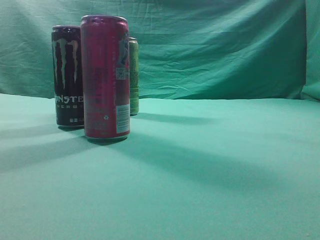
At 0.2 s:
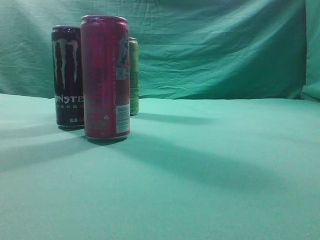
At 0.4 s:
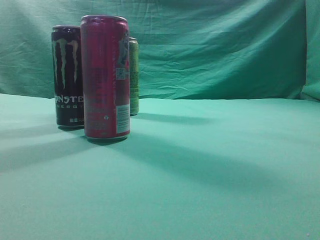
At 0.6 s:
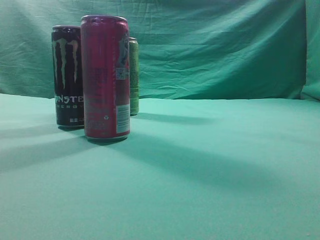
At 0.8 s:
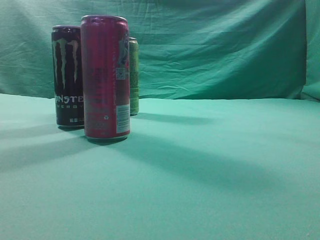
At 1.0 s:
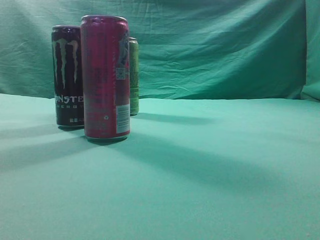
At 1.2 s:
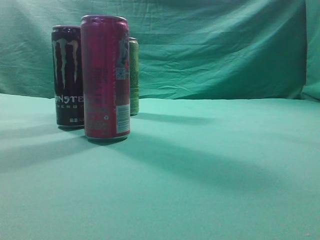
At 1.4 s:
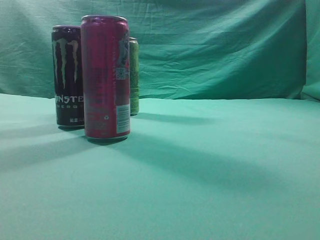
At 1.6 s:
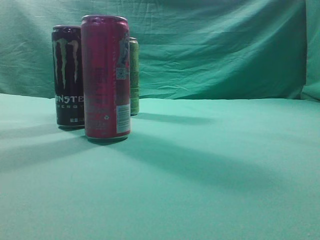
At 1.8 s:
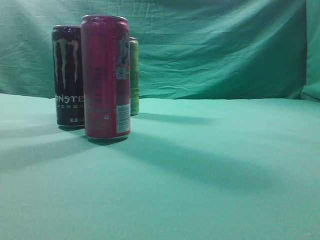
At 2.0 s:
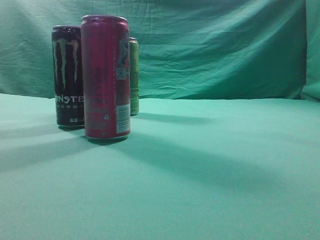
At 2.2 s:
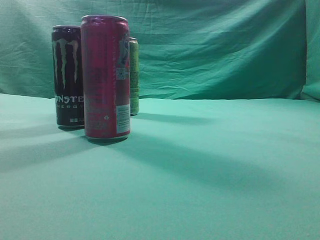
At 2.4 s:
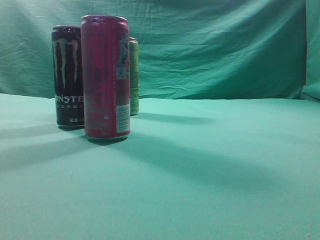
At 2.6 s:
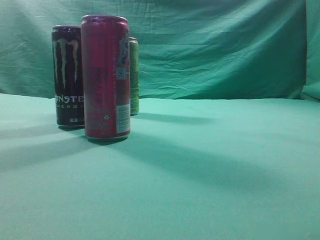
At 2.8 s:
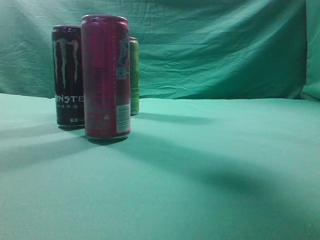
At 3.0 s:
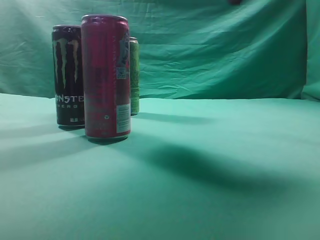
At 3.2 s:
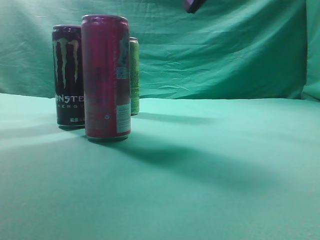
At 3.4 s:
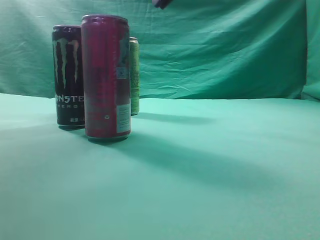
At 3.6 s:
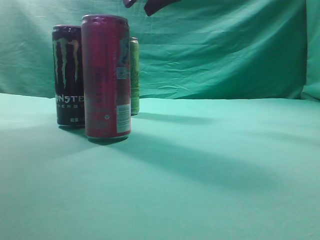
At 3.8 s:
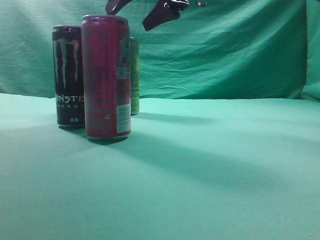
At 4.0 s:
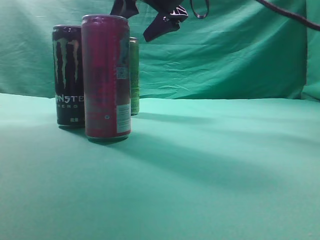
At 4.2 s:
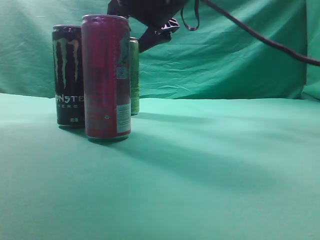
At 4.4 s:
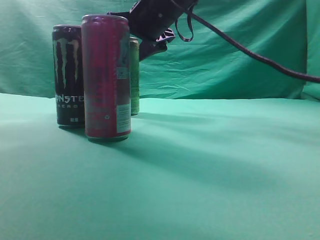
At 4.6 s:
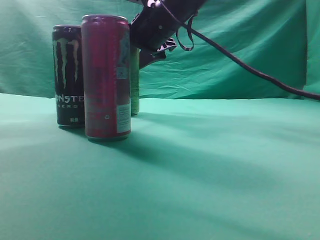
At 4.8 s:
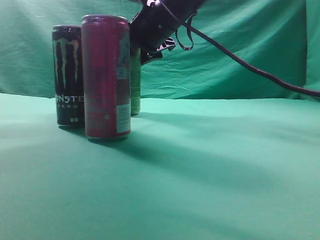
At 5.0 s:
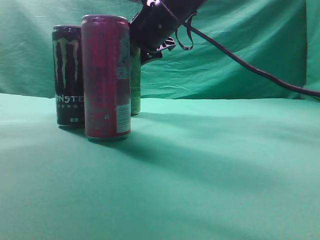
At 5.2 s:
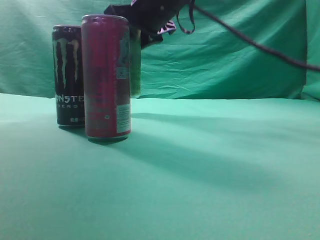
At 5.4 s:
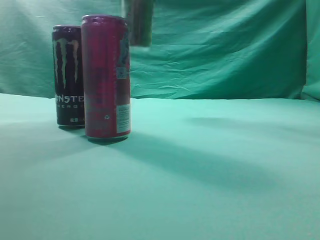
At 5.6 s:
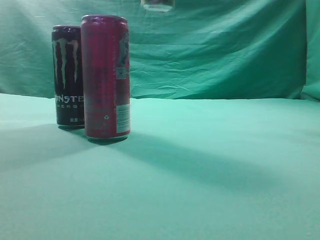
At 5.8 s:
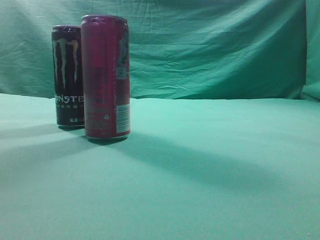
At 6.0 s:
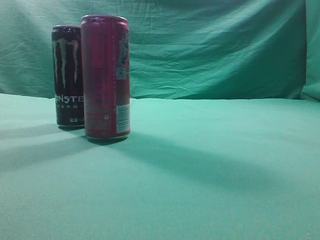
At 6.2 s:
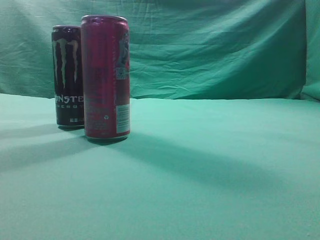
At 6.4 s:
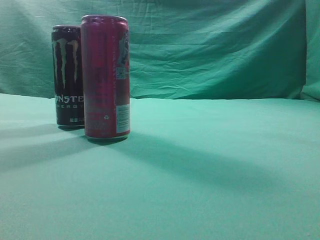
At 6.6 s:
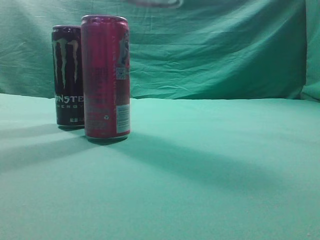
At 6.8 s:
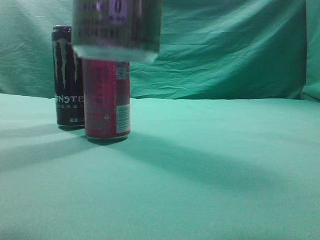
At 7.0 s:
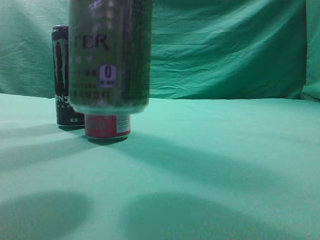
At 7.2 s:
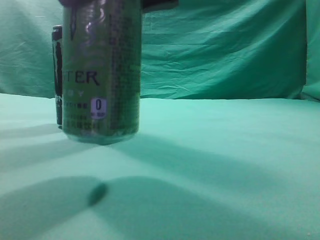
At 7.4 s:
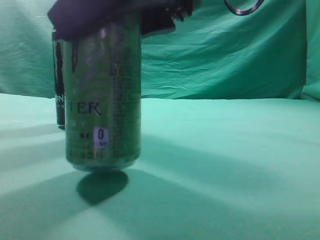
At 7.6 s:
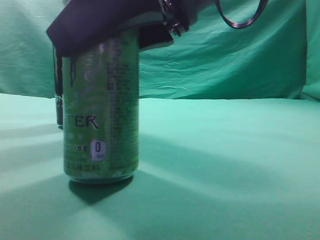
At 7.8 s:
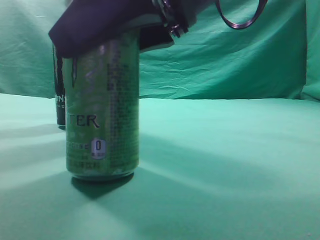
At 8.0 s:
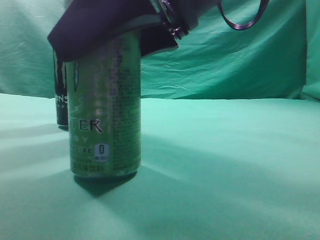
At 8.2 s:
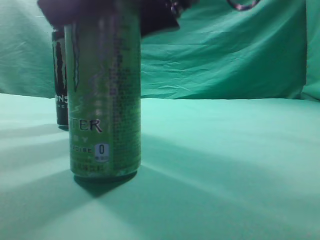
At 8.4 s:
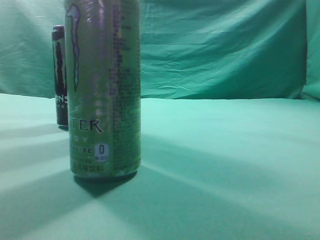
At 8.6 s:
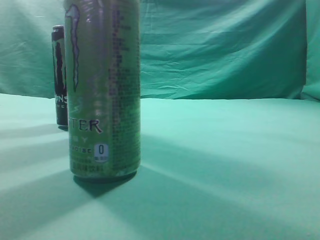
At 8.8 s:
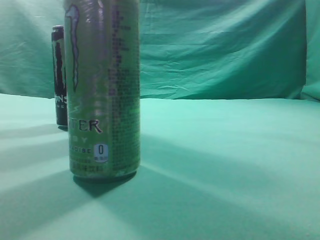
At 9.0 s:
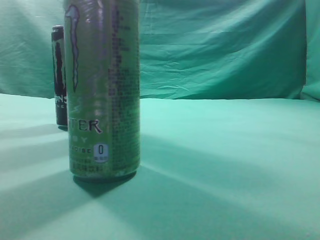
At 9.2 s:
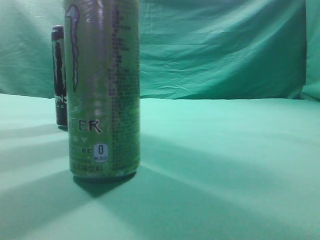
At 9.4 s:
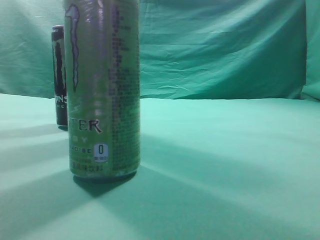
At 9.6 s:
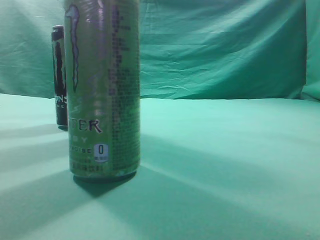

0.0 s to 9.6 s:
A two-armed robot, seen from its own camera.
Task of the whole recording: move one drink among three beverages.
Step, 0.0 to 5.2 s: Grasp the beverage bottle placed at the back of the desk.
Step, 5.4 to 8.8 s: Place the beverage bottle to the front of the table.
1.6 to 3.2 s: The right gripper heads forward and to the left, covering roughly 35 cm.
3.2 to 4.8 s: The right gripper moves downward, to the left and forward, some 15 cm, and opens its fingers.
4.8 to 6.4 s: The right gripper goes approximately 30 cm backward, upward and to the right.
6.4 to 8.0 s: The right gripper shifts about 15 cm downward and to the left.
8.0 to 9.6 s: The right gripper heads to the right, upward and backward, covering about 20 cm, and closes up.

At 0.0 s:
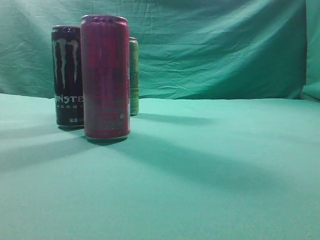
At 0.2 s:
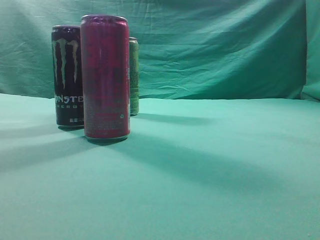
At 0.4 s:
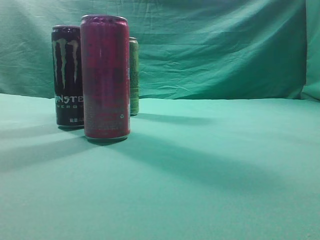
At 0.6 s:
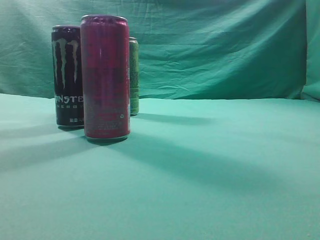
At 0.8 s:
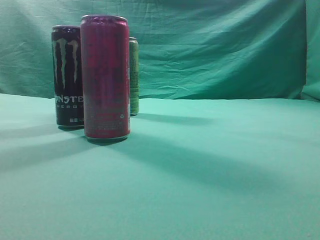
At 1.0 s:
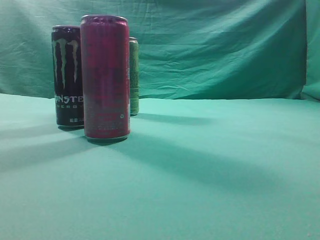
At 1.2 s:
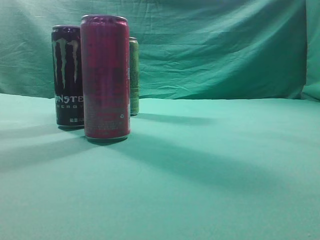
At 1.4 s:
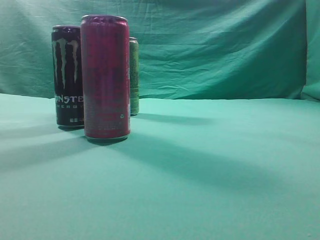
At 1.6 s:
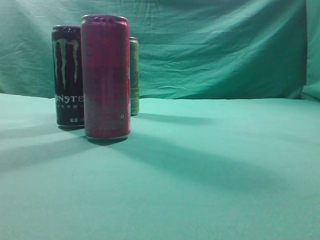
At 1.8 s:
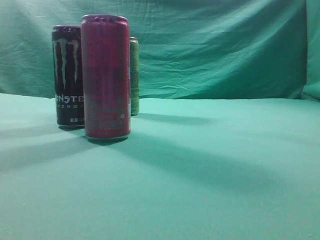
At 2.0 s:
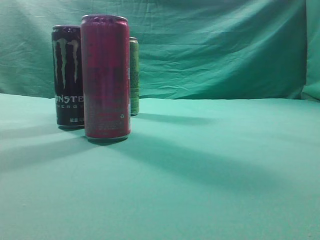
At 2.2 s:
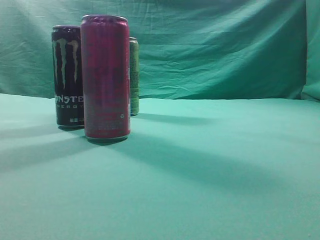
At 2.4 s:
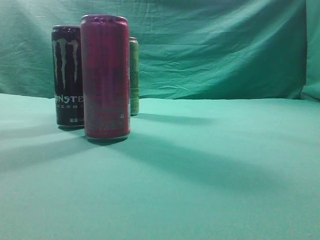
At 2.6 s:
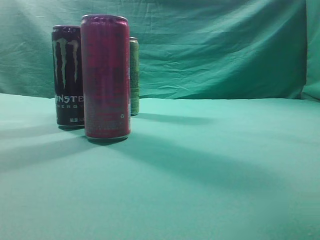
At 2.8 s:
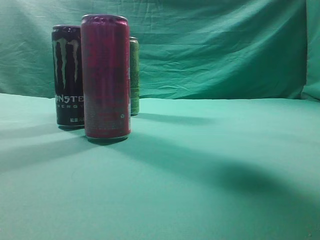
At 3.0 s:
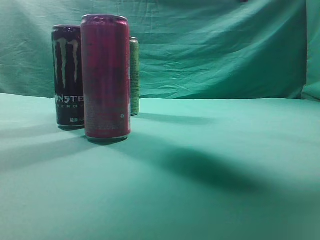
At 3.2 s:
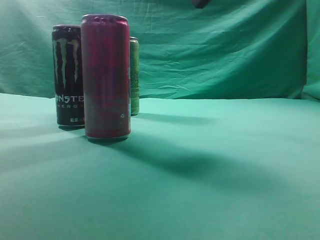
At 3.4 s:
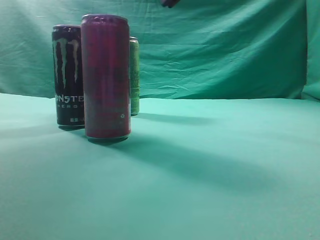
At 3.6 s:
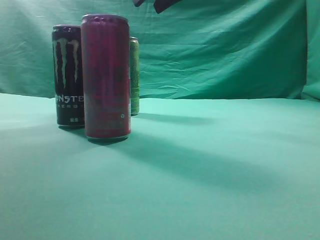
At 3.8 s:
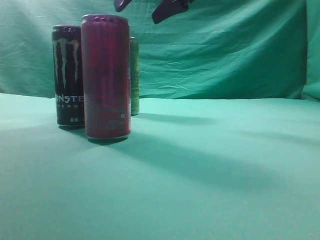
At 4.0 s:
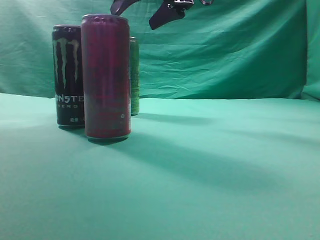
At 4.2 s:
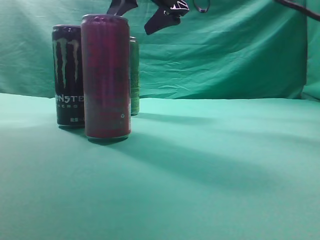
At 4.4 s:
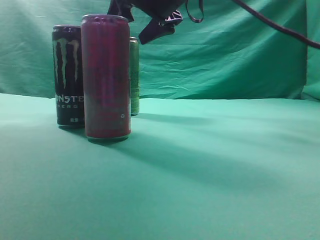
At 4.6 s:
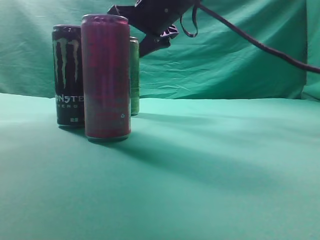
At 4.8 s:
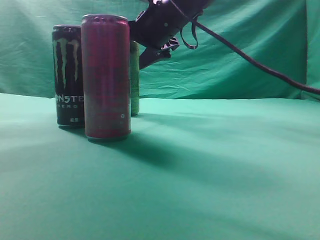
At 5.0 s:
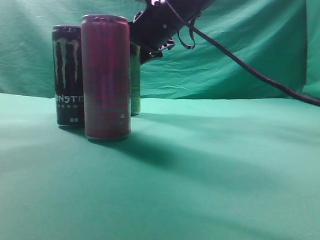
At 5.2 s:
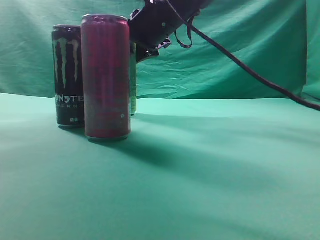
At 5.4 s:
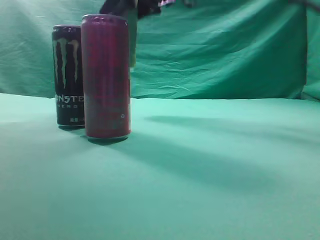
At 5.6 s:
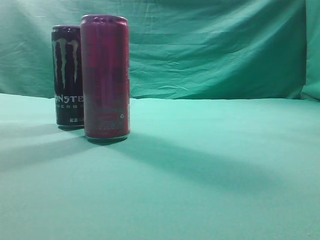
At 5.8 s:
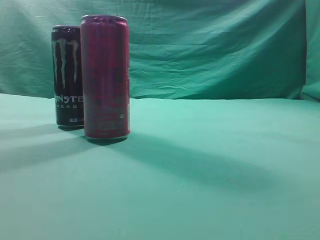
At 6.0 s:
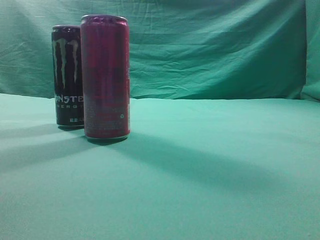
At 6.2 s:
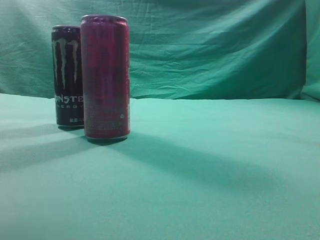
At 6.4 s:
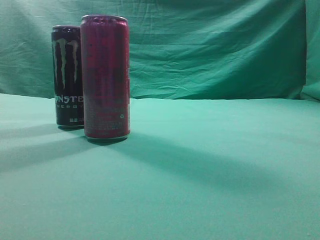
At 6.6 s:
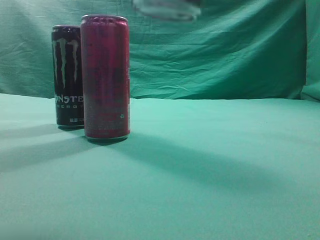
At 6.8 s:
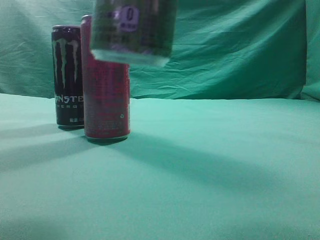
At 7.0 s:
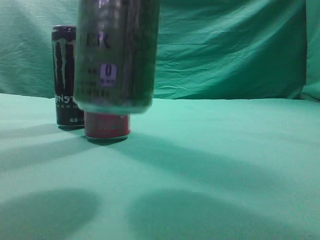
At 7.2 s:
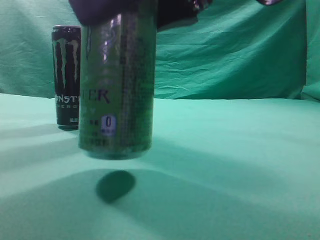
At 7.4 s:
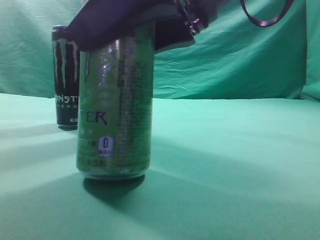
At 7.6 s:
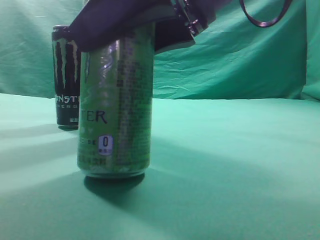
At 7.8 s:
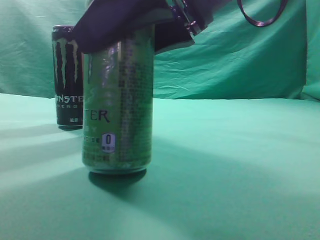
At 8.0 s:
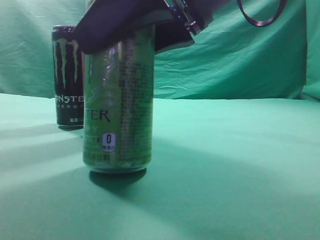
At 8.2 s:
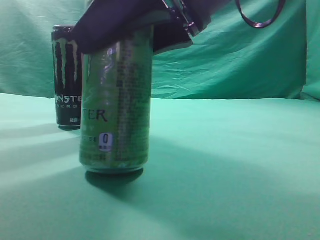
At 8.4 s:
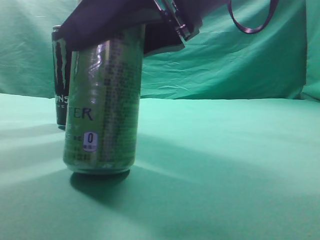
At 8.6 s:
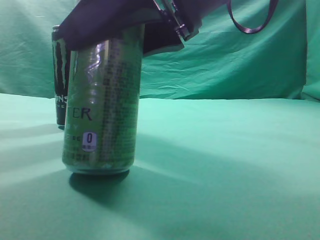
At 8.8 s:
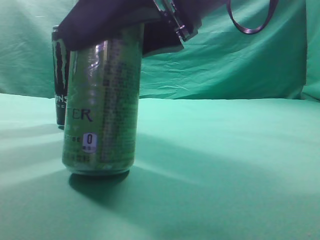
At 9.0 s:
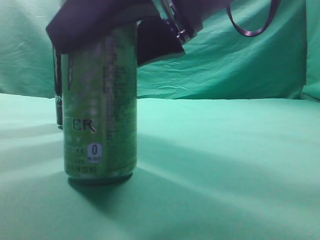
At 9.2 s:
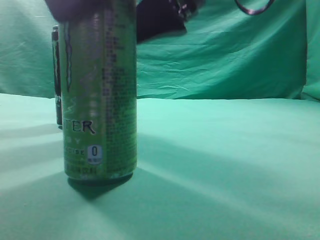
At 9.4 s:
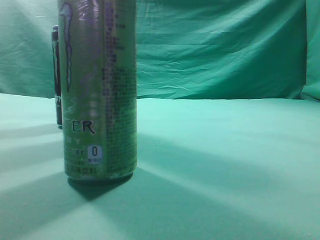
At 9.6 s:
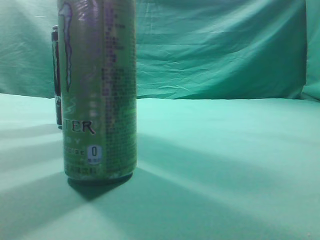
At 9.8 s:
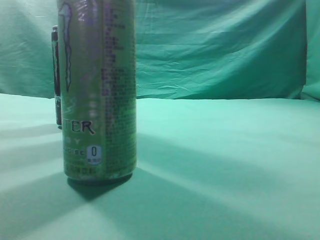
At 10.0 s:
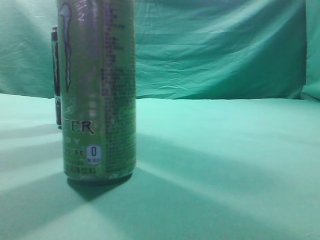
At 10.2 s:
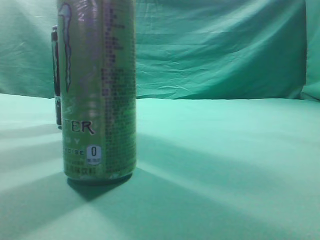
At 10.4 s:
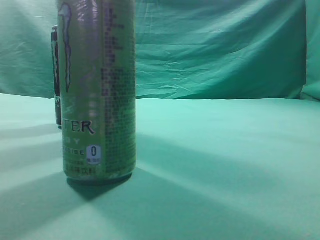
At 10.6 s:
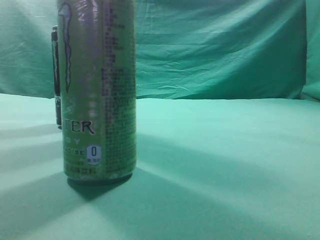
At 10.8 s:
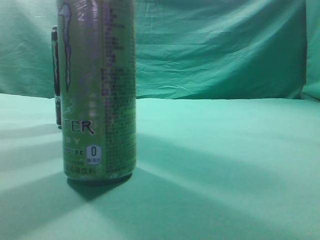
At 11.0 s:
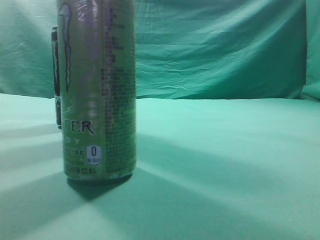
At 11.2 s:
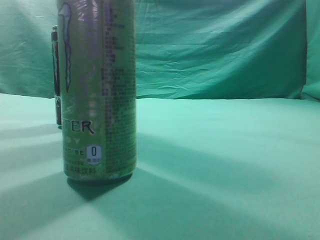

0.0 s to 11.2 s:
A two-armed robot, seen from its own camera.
Task of the whole recording: move one drink among three beverages.
Step, 0.0 to 5.4 s: Grasp the beverage bottle placed at the back of the desk.
Step, 5.6 to 9.6 s: Place the beverage bottle to the front of the table.
1.6 to 3.2 s: The right gripper is displaced forward and to the left by some 35 cm.
3.2 to 4.8 s: The right gripper heads forward, downward and to the left, covering some 15 cm, and opens its fingers.
4.8 to 6.4 s: The right gripper is displaced backward, upward and to the right by some 30 cm.
6.4 to 8.0 s: The right gripper moves downward and to the left, some 15 cm.
8.0 to 9.6 s: The right gripper is displaced upward by roughly 10 cm.
